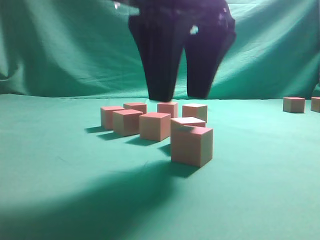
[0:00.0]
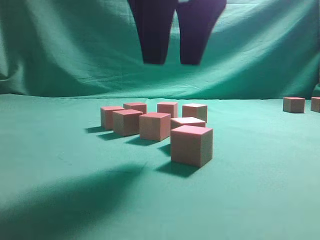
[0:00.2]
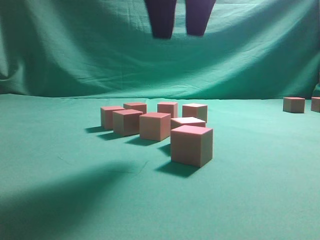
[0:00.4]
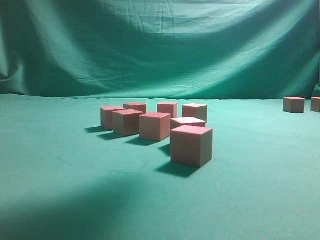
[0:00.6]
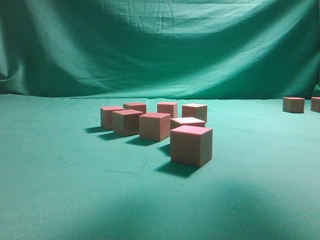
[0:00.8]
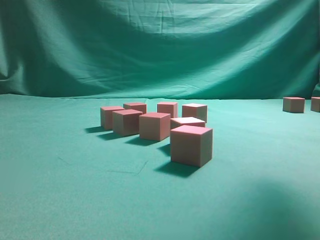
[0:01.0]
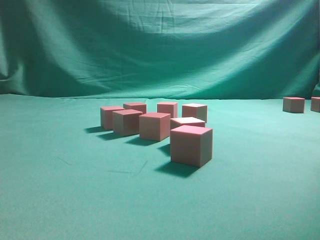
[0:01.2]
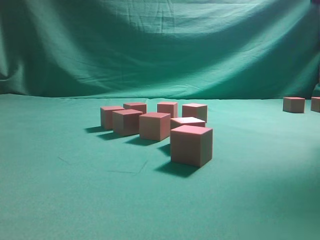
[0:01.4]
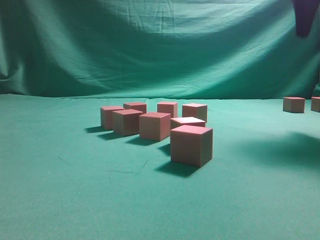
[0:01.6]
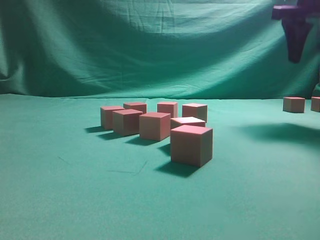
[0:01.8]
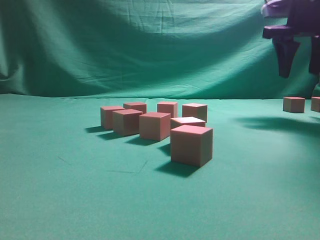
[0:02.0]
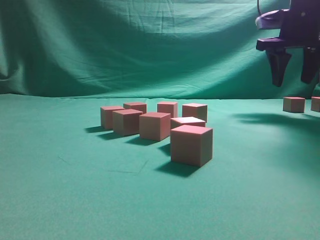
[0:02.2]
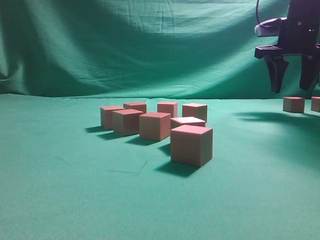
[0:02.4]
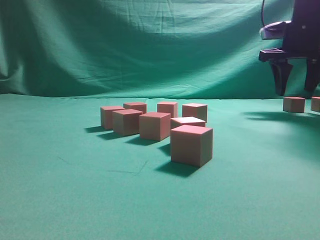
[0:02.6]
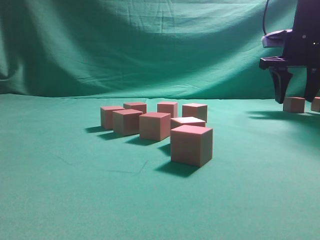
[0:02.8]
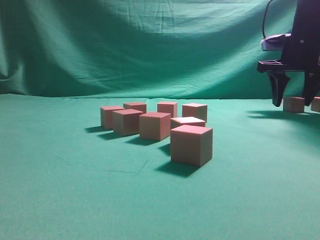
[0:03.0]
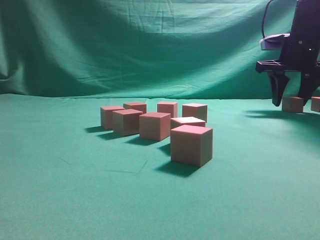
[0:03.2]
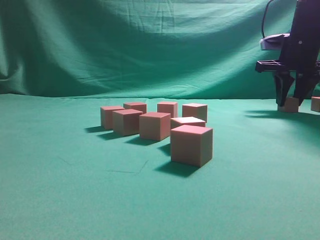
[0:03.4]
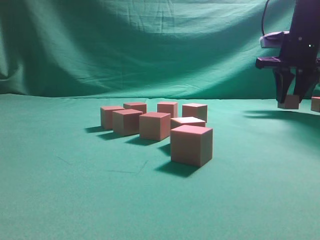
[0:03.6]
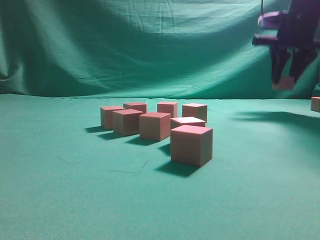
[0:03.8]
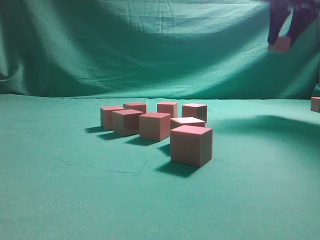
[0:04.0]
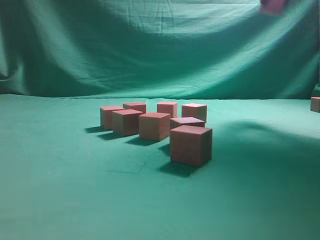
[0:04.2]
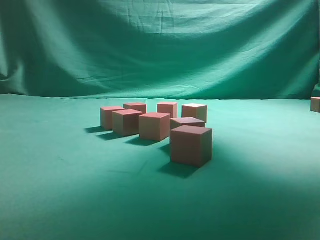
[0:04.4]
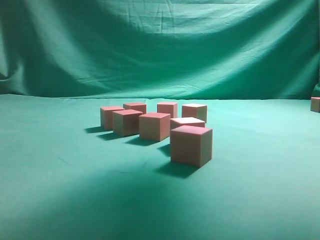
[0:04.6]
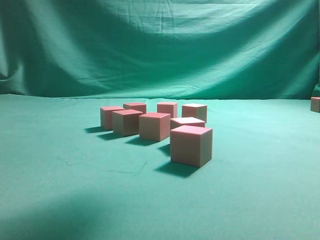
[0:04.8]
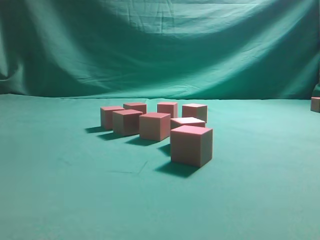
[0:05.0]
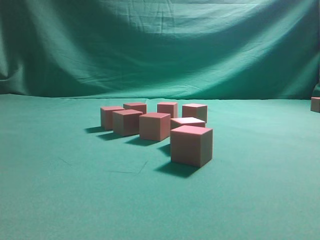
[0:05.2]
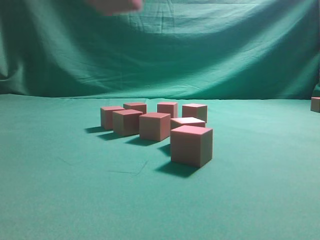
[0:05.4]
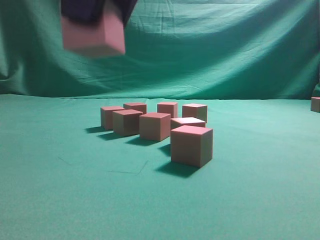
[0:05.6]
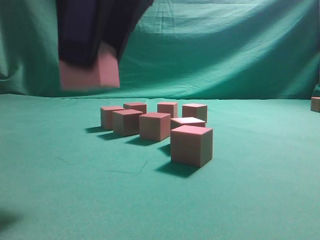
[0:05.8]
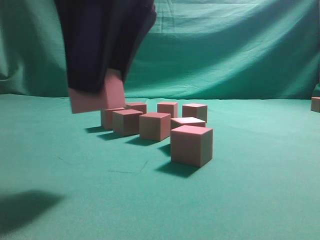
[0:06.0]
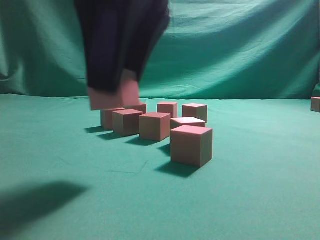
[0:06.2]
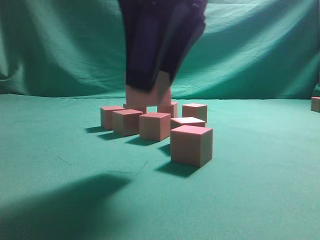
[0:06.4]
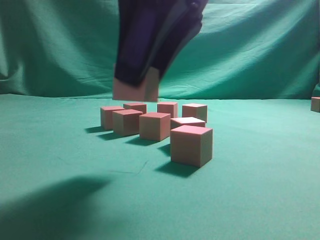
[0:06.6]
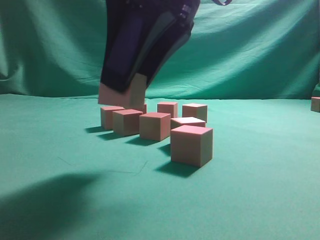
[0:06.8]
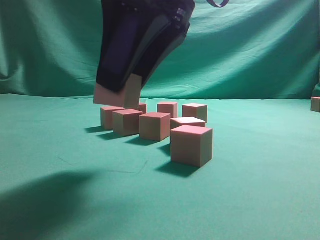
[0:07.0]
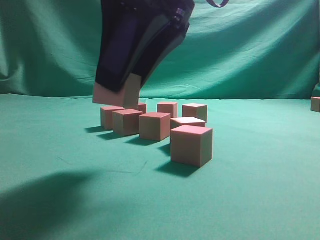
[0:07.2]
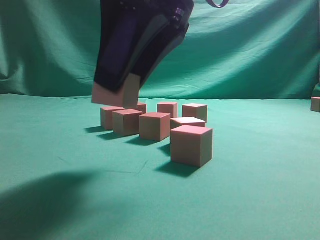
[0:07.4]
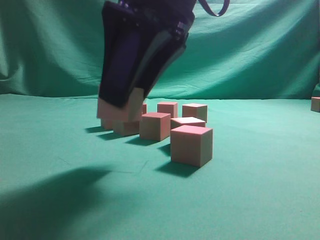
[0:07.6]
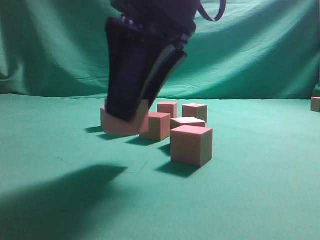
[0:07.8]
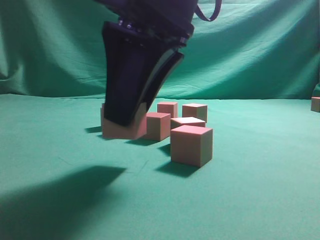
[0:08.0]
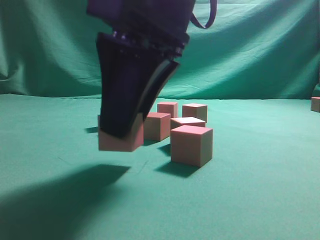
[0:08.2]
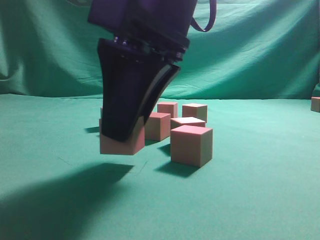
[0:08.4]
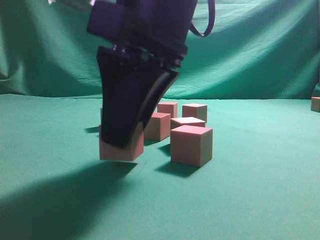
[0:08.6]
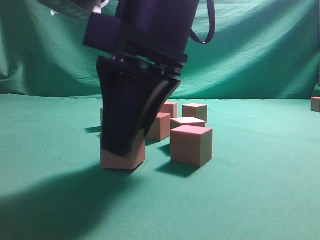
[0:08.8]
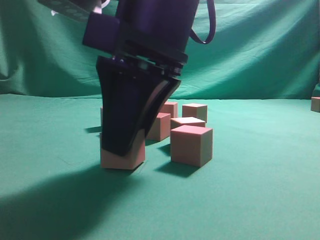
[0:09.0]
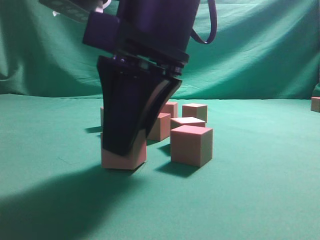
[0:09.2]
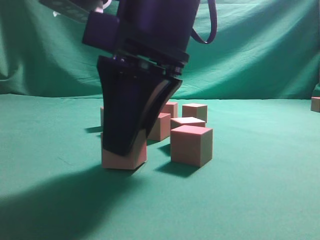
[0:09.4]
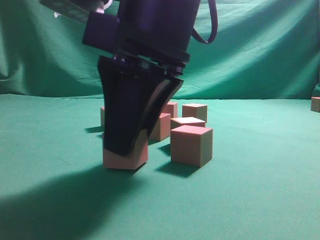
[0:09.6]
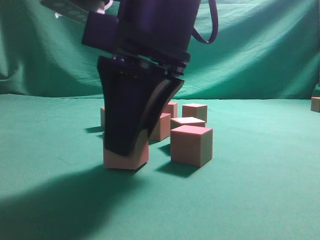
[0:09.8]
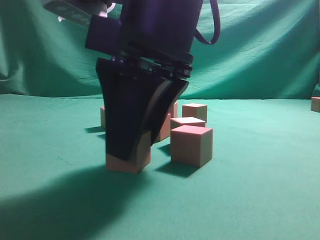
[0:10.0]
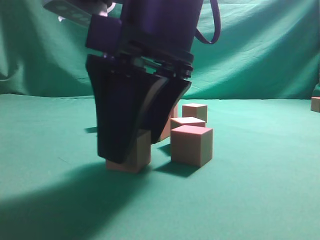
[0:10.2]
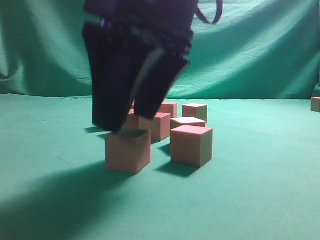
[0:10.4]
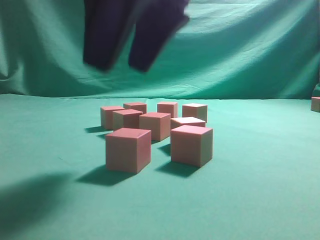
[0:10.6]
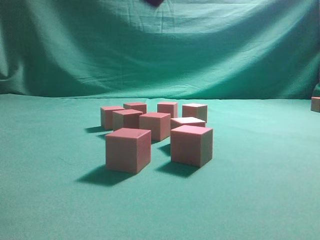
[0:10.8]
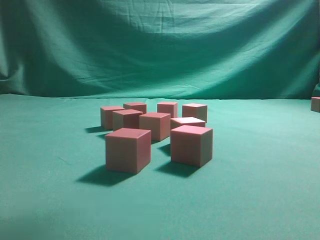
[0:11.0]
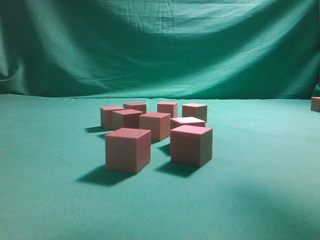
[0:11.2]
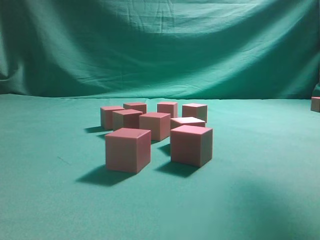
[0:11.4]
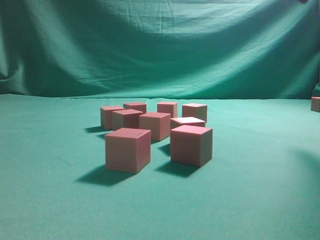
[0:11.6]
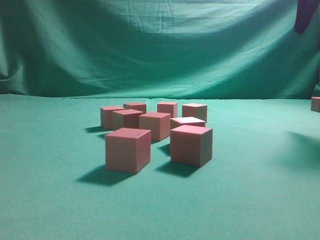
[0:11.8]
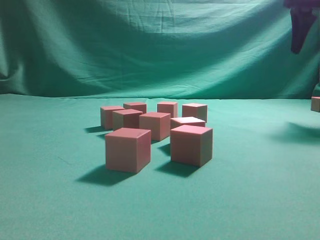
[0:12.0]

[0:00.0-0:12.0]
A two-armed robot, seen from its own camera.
Task of the whole recording: pick up the multiple cubes in two columns one by one and place them in another position on the table.
Step, 0:00.4 to 0:03.8: Pick up the block on the table.
Step, 0:04.0 to 0:10.4: Place the block at the correct position to assemble the letter S.
0:00.0 to 0:01.6: The right gripper shifts about 25 cm to the right and forward.
0:01.6 to 0:03.0: The right gripper is displaced downward and forward by some 15 cm.
0:03.0 to 0:04.4: The right gripper is displaced upward and backward by some 25 cm.
0:04.4 to 0:06.0: The right gripper travels to the left, backward and downward by some 35 cm.
0:06.0 to 0:07.6: The right gripper ends up about 5 cm from where it was.
0:07.6 to 0:09.0: The grippers make only small movements.
0:09.0 to 0:10.4: The right gripper opens.
0:10.4 to 0:12.0: The right gripper heads to the right and forward, covering approximately 35 cm.

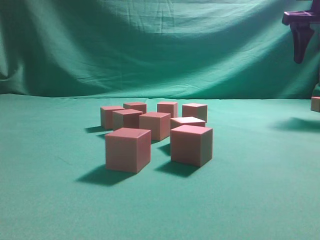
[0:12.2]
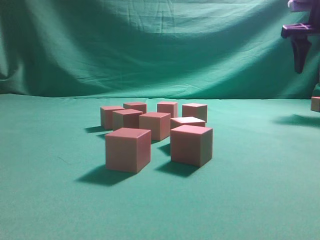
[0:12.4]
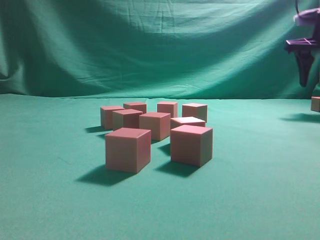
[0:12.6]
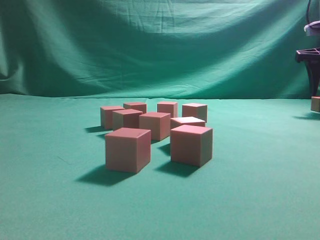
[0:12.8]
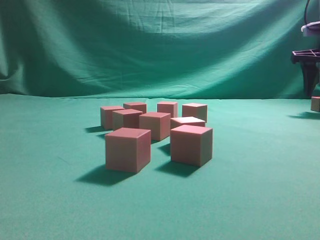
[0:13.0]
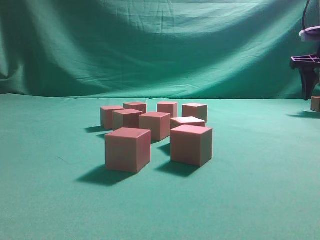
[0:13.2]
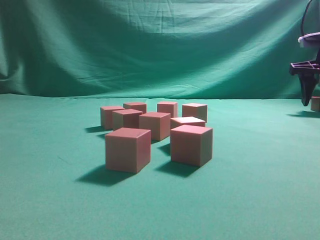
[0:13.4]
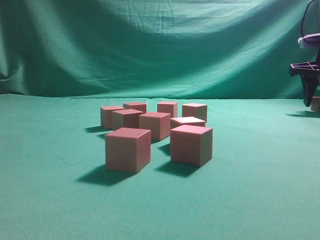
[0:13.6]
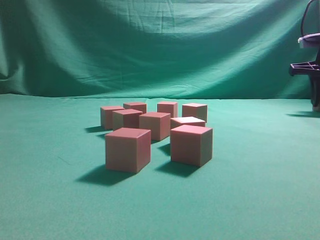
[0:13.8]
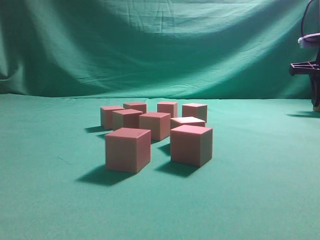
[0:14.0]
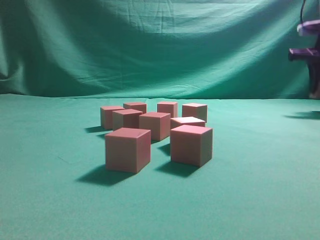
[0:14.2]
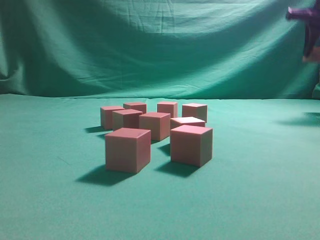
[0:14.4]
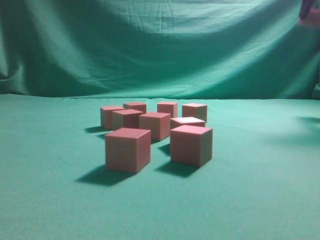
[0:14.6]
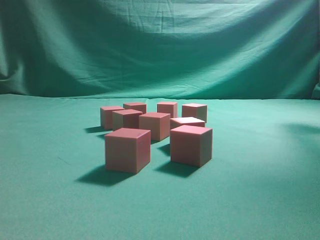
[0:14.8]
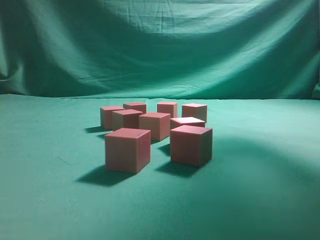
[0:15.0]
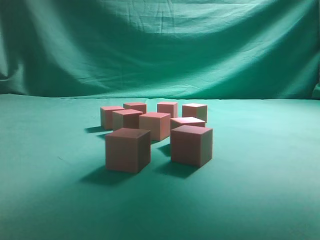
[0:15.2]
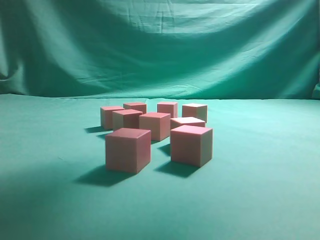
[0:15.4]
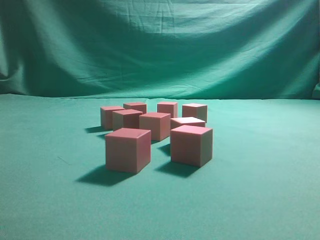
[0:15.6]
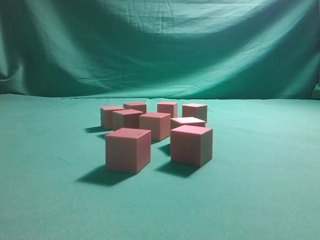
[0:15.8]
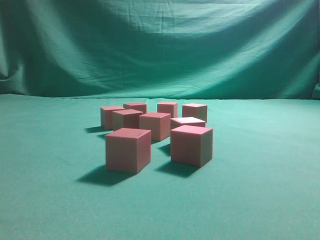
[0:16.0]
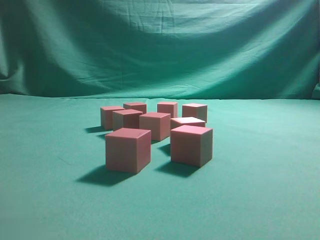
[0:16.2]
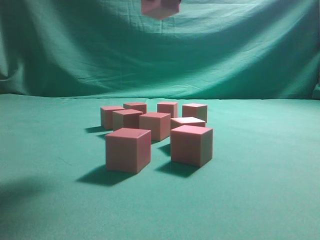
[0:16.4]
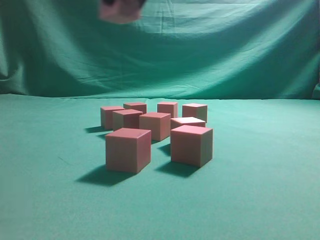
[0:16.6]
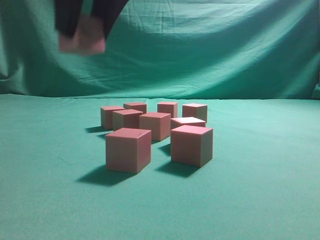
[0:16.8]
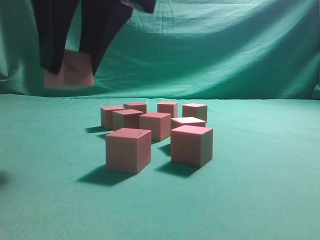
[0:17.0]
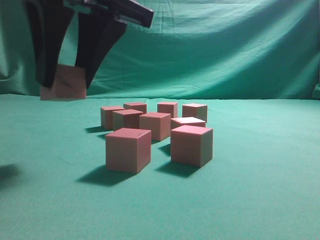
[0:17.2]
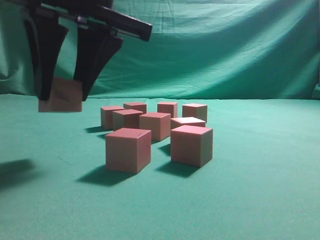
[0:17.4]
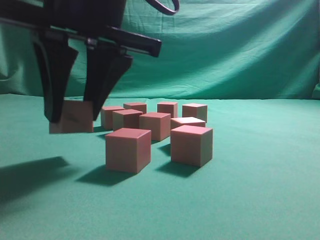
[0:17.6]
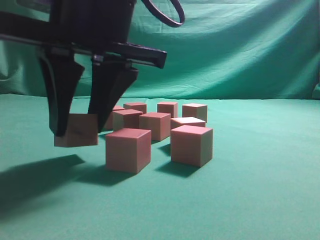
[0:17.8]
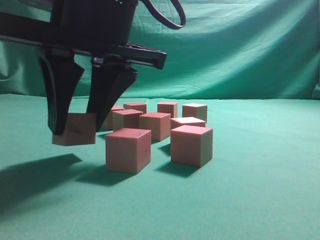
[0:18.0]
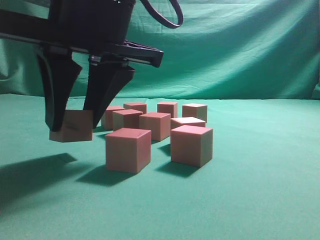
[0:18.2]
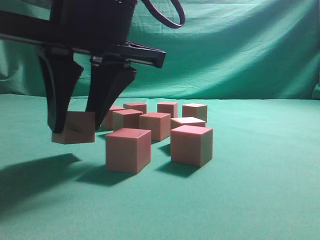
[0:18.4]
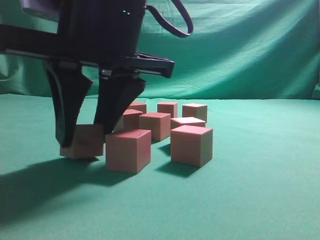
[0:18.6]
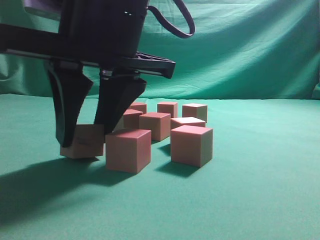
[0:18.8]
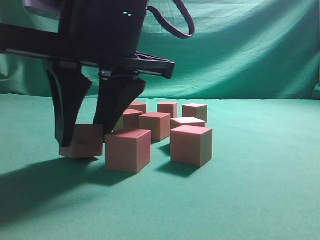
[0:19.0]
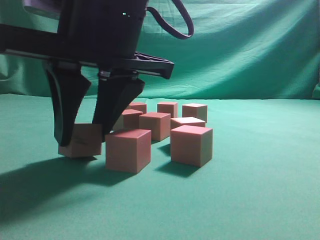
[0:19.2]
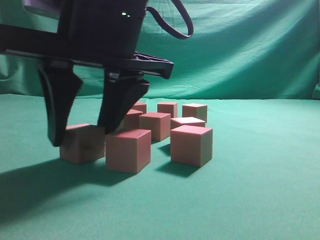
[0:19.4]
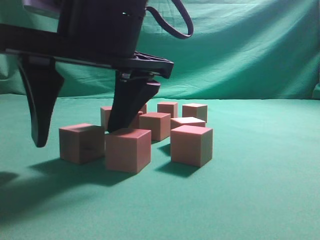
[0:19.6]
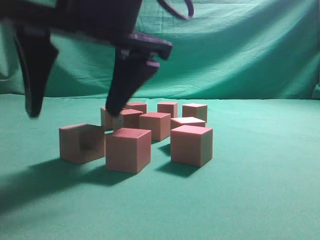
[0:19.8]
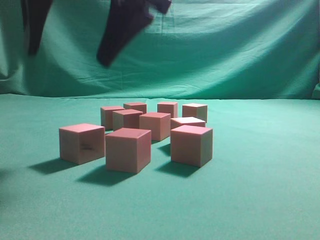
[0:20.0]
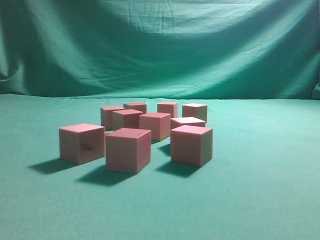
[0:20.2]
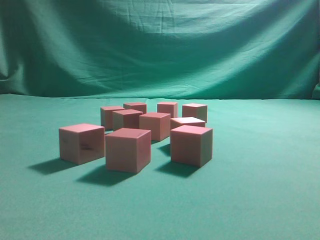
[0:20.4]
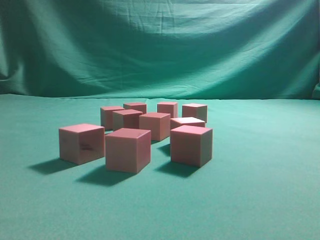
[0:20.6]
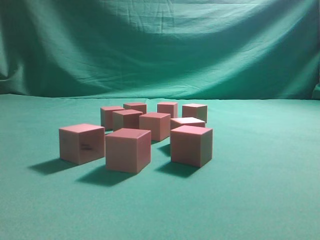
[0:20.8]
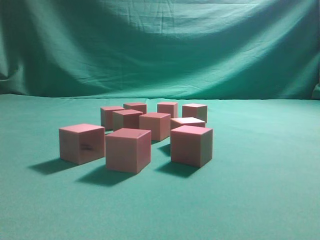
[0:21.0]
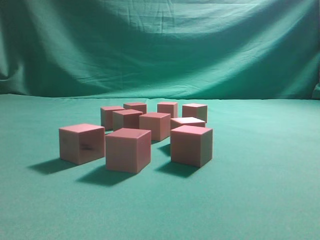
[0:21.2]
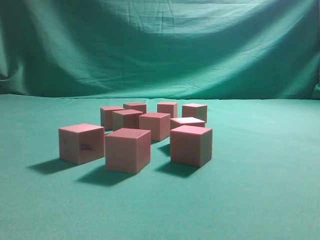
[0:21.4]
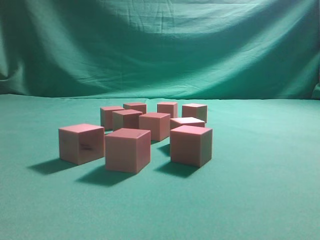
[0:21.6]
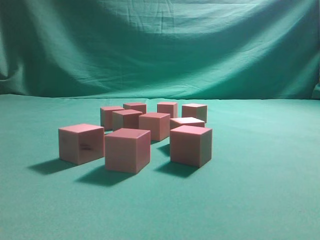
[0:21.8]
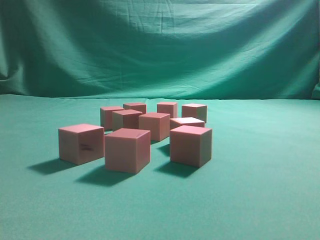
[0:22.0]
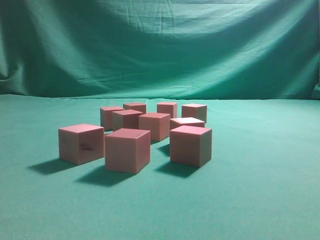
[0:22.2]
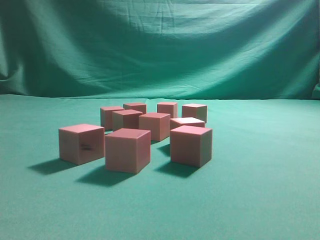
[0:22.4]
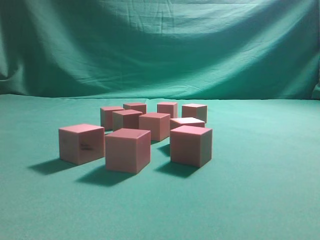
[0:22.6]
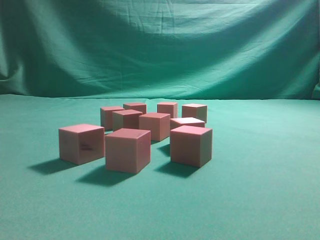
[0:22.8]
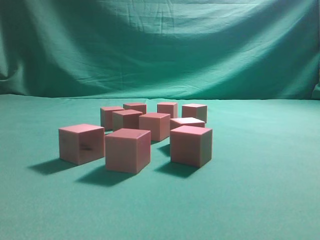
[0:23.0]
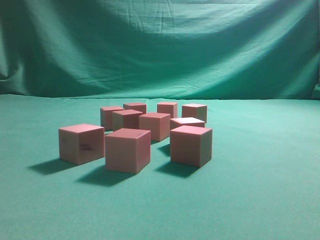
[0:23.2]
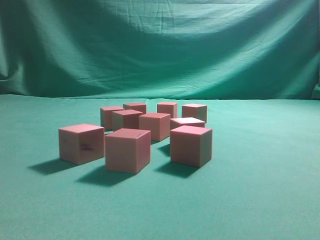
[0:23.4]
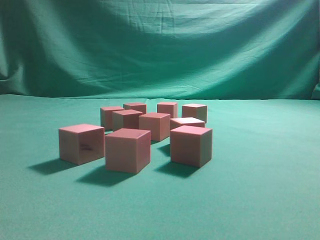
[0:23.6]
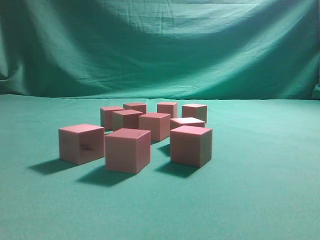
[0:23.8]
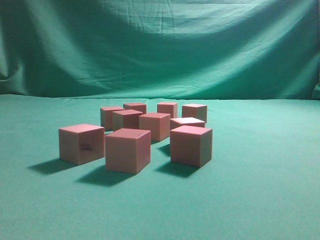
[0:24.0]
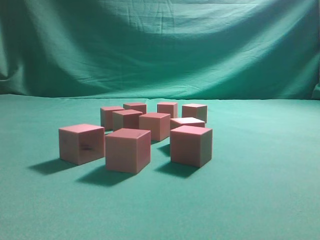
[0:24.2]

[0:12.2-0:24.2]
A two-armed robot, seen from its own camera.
Task of the whole recording: pick up the multiple cubes in two columns one by one and place them in another position on the table.
Step, 0:12.2 to 0:14.4: Pick up the block on the table.
Step, 0:14.6 to 0:19.8: Place the block at the correct position to assemble the letter S.
0:12.2 to 0:13.8: The right gripper travels downward by approximately 10 cm, and closes up.
0:13.8 to 0:15.2: The right gripper heads upward, to the left and backward, covering some 30 cm.
0:15.2 to 0:16.6: The right gripper shifts roughly 25 cm to the left, backward and downward.
0:16.6 to 0:18.2: The right gripper heads downward, covering some 10 cm.
0:18.2 to 0:19.8: The right gripper opens its fingers.
0:19.8 to 0:21.2: The right gripper heads upward, to the right and backward, covering approximately 30 cm, and closes up.
